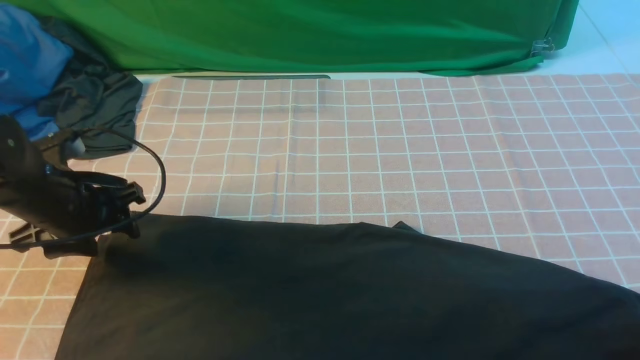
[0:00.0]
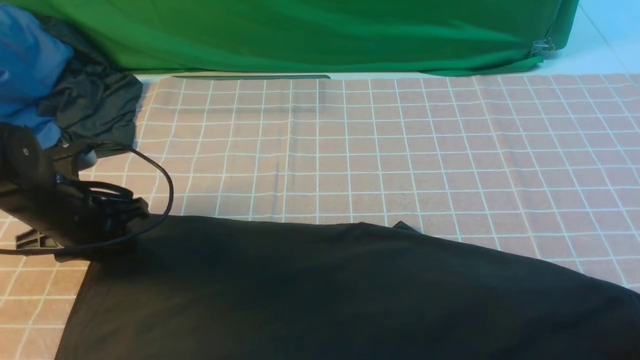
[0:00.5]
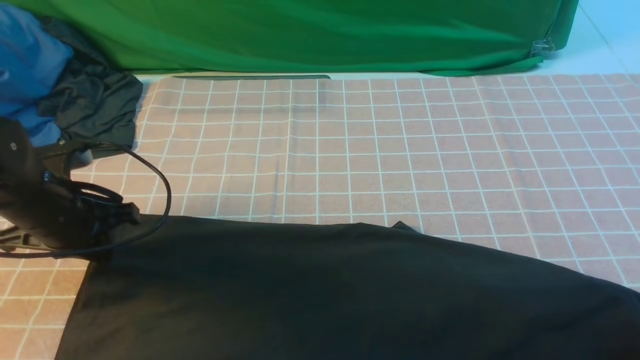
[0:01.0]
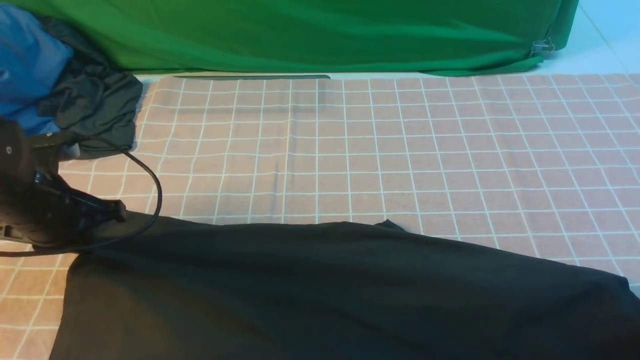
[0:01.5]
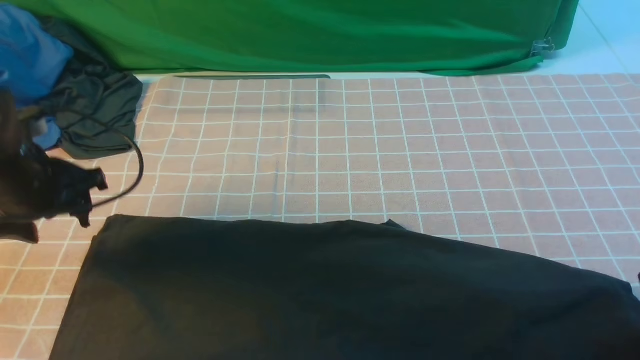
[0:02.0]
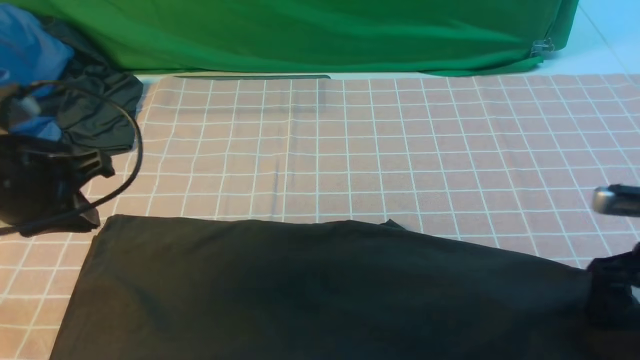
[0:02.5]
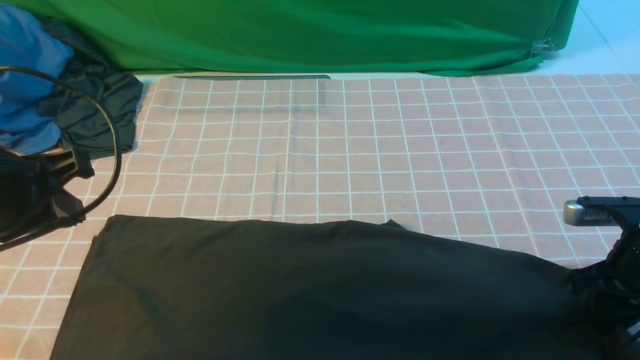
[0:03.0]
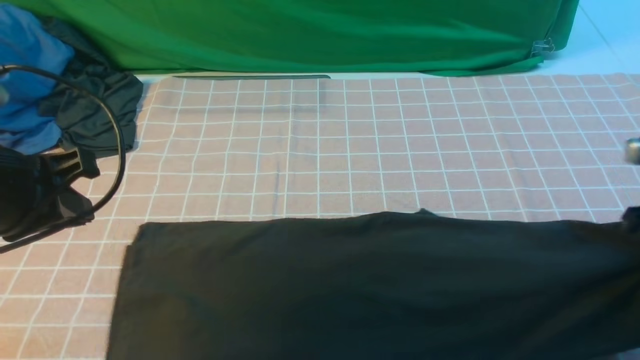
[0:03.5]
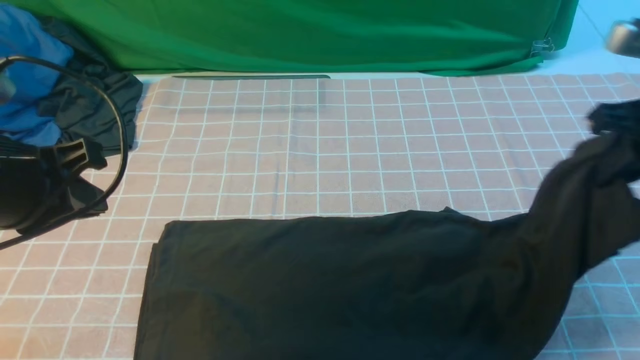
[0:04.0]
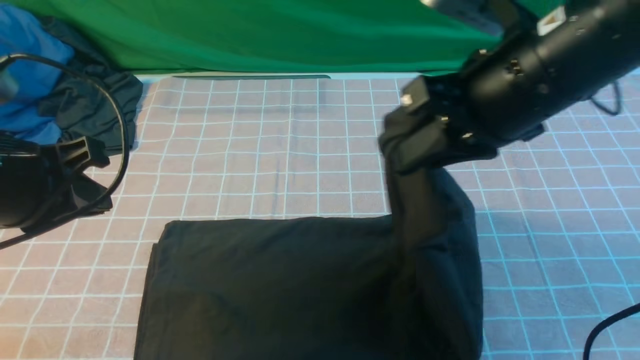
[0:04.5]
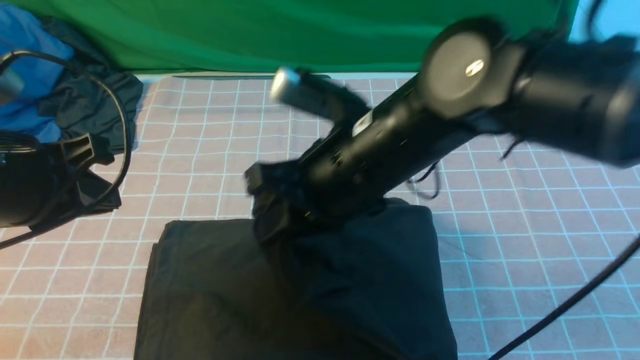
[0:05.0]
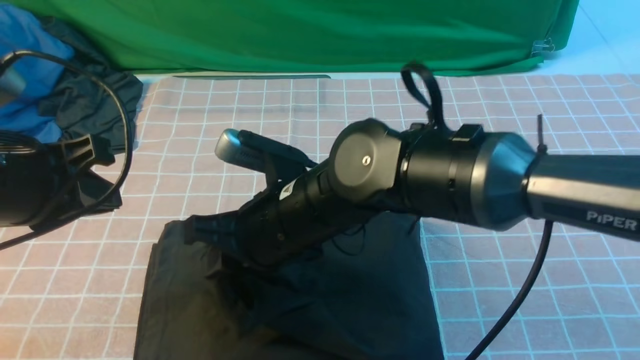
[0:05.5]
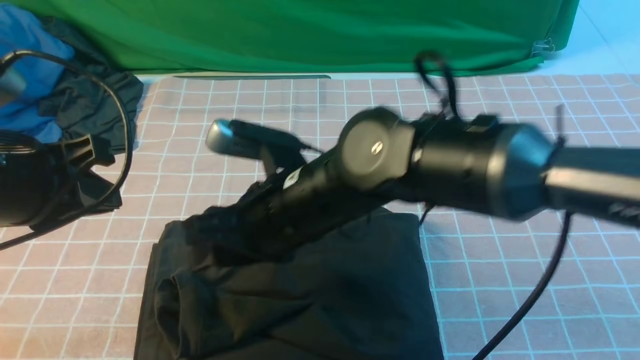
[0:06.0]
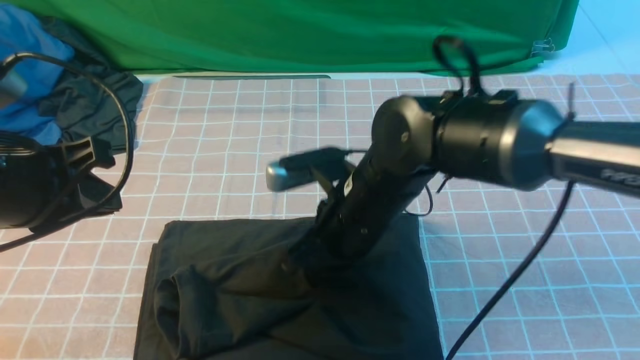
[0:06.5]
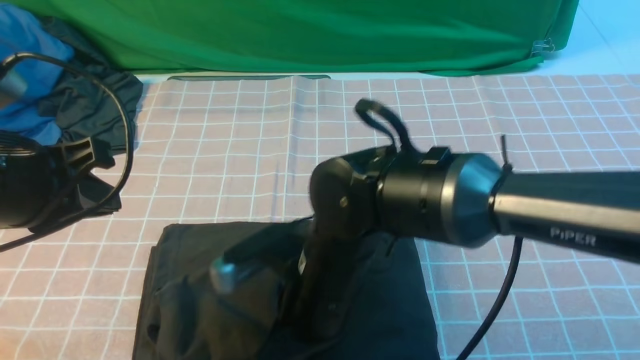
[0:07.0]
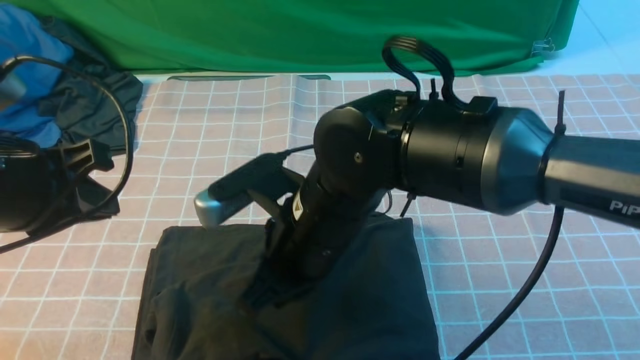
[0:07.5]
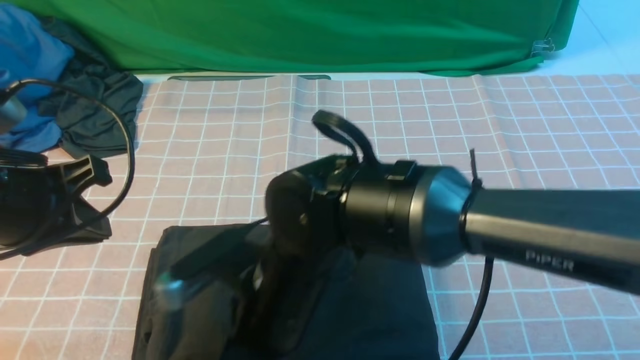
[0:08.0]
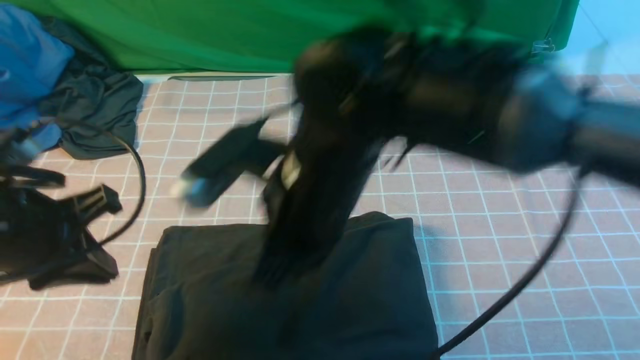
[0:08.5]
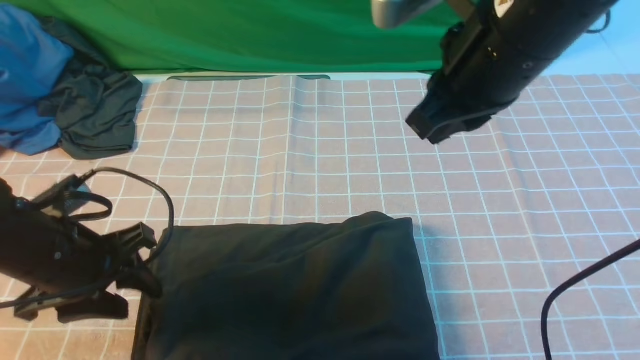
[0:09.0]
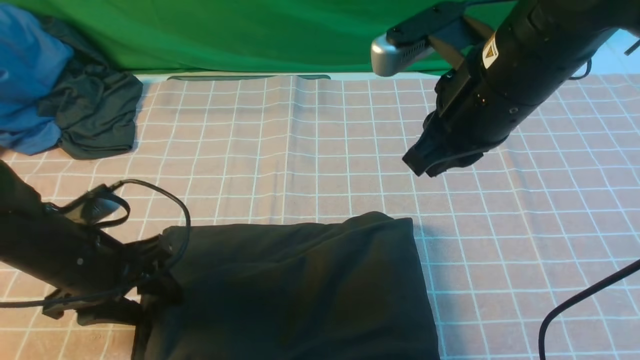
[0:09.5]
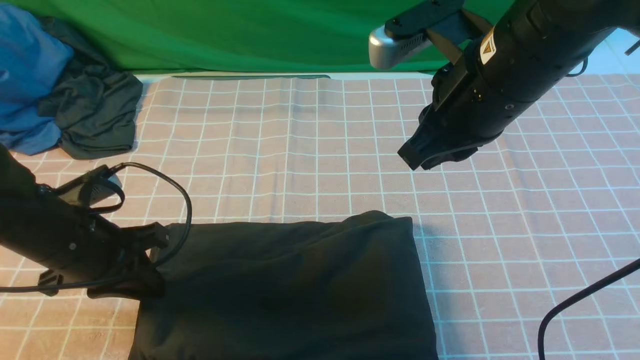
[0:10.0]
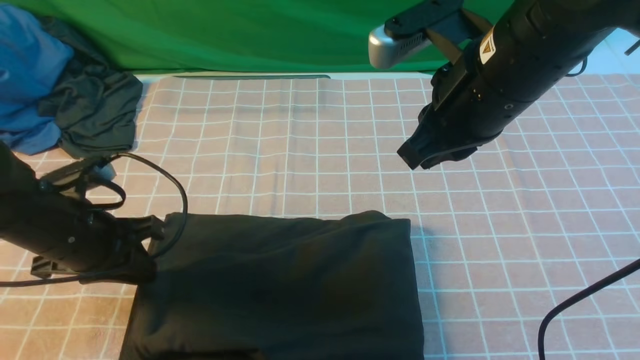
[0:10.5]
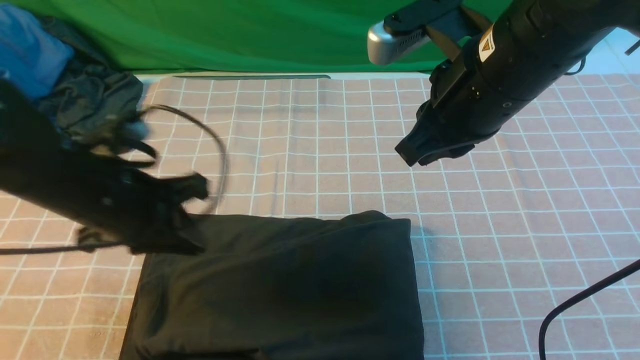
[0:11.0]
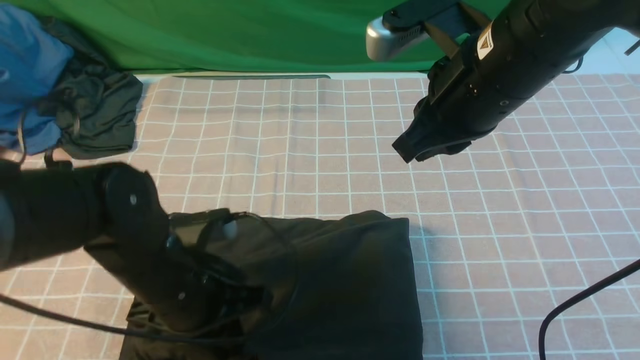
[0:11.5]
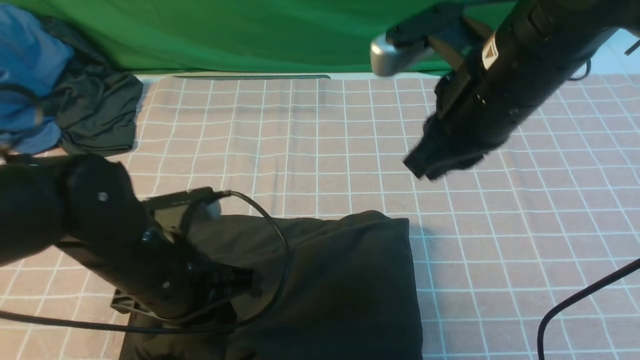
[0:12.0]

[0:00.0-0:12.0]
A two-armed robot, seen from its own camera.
Step, 0:00.0 to 0:03.0: use the right arm to clamp the right edge of the fabric.
Step, 0:03.5 to 0:05.5: use the right arm to drag the right edge of the fabric to the left and folds it over the left edge.
0:00.0 to 0:02.0: The left gripper closes and opens again.
0:02.0 to 0:04.0: The right gripper is displaced upward, to the left and forward by approximately 15 cm, and closes its fingers; the left gripper shifts about 15 cm backward and upward, and closes its fingers.
0:04.0 to 0:06.0: The right gripper heads to the left, covering approximately 30 cm.
0:06.0 to 0:08.0: The right gripper goes approximately 5 cm backward, and closes its fingers.
0:08.0 to 0:10.0: The left gripper travels downward by about 10 cm, and opens, then closes again, while the right gripper goes approximately 25 cm to the right, upward and forward.
0:10.0 to 0:12.0: The left gripper moves to the right, approximately 10 cm.

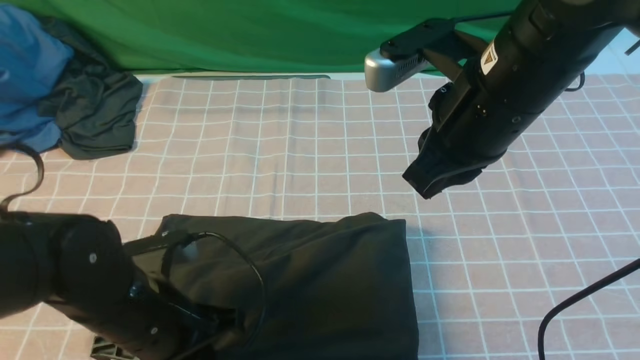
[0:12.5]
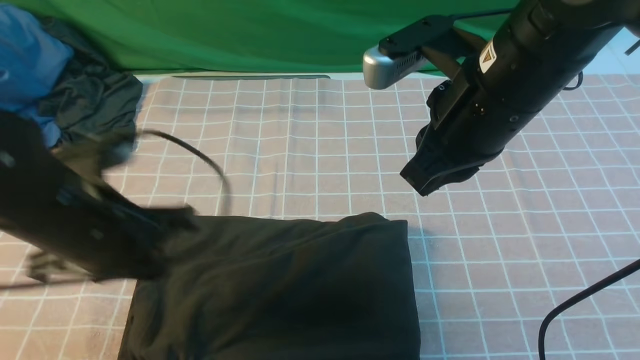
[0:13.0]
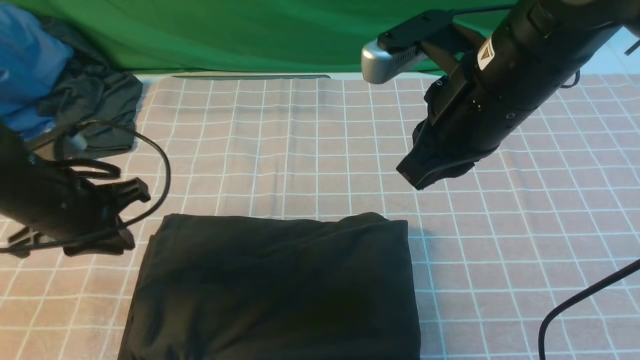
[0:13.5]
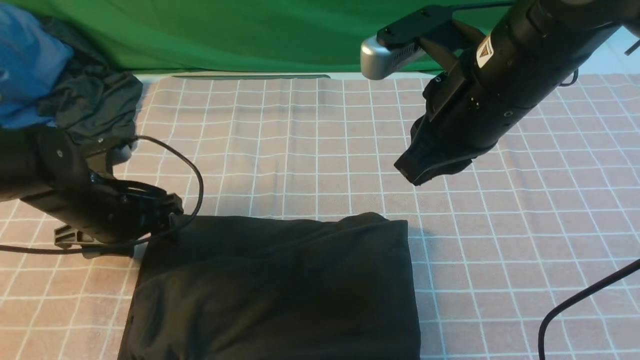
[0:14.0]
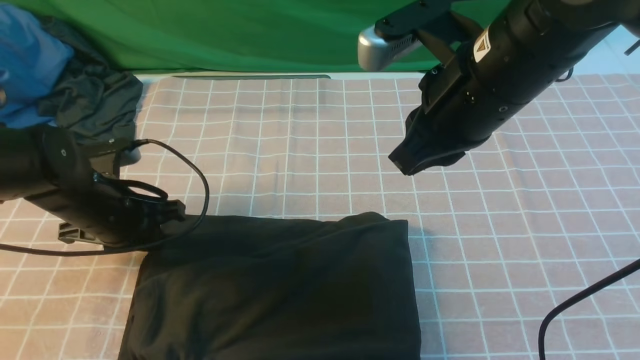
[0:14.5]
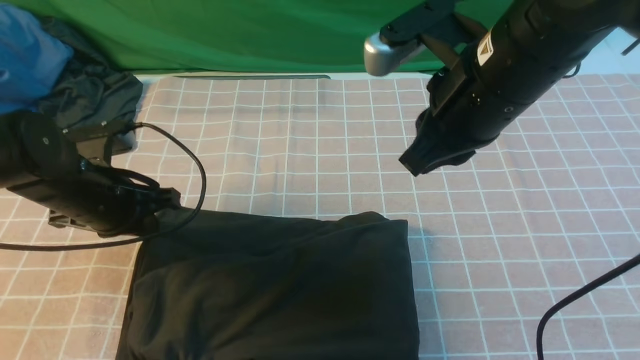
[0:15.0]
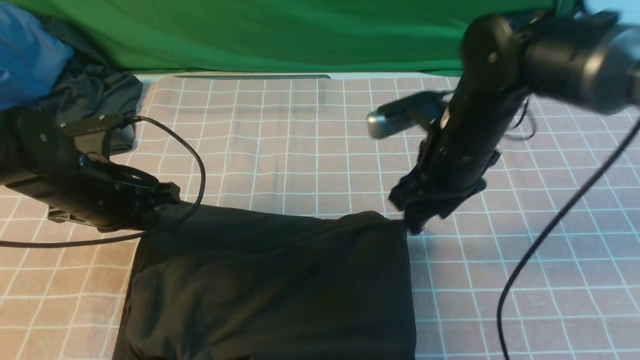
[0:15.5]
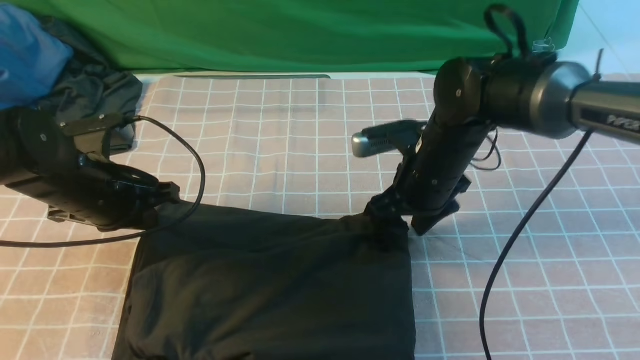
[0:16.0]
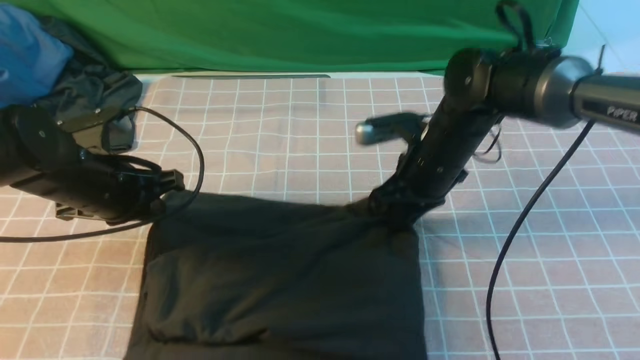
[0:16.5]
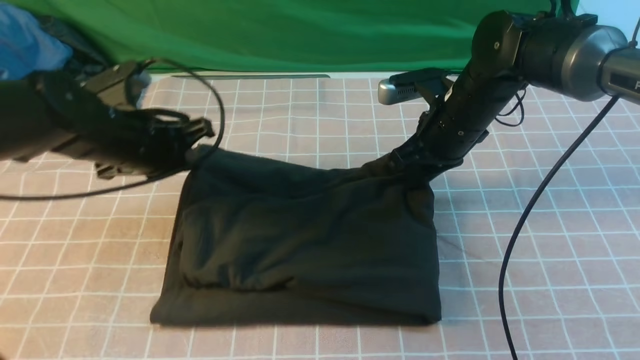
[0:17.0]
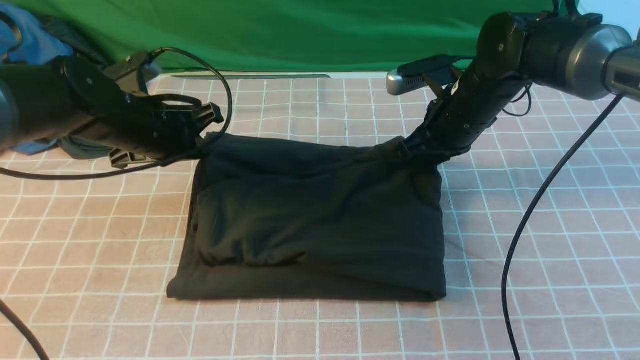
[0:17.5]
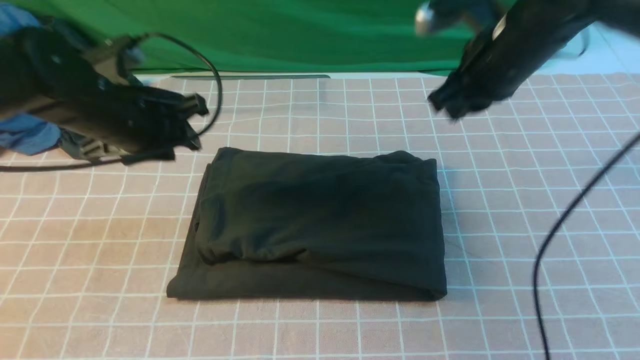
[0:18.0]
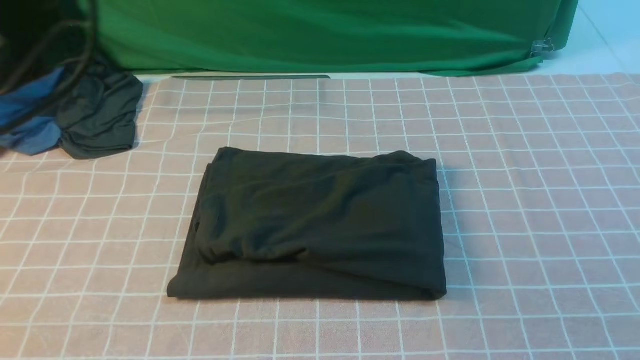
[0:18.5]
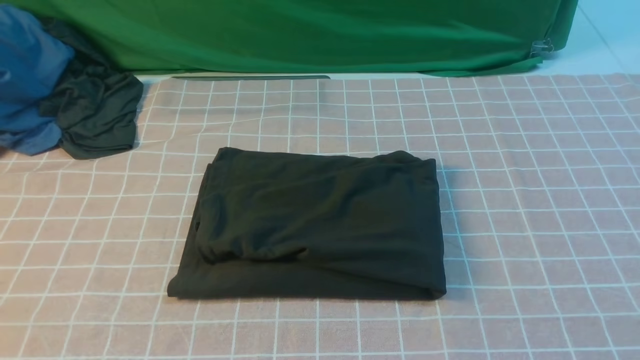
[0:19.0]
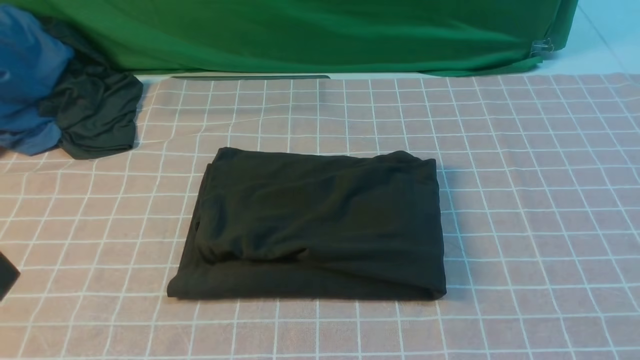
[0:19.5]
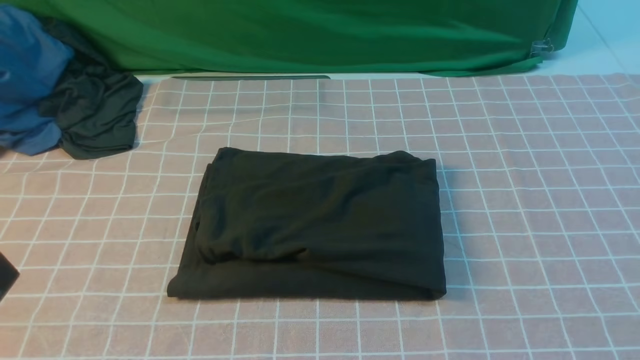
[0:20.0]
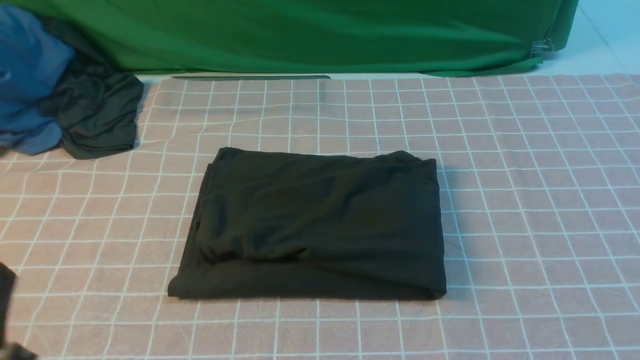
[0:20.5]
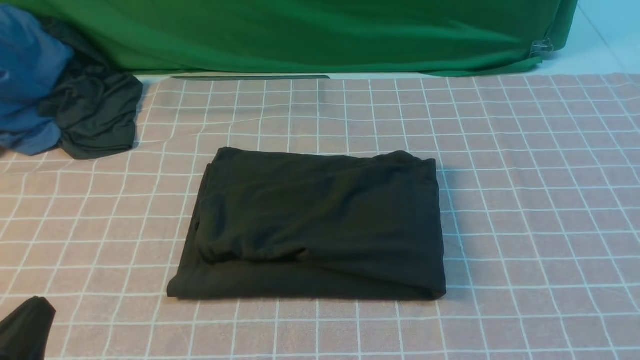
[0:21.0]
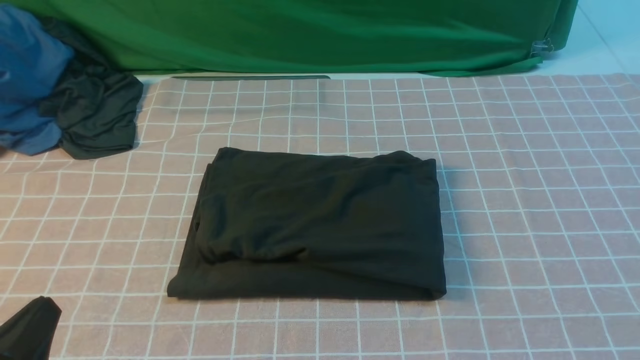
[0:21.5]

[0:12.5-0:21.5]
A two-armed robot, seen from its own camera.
0:12.5 to 0:14.5: The left gripper goes roughly 15 cm forward and to the left, and opens and closes again.
0:14.5 to 0:17.0: The right gripper heads downward and forward, covering some 20 cm, and opens and closes again, while the left gripper is displaced upward by some 5 cm.
0:17.0 to 0:19.5: The left gripper moves backward, some 35 cm, and opens, then closes again, while the right gripper is displaced backward and upward by some 50 cm.
0:19.5 to 0:21.5: The left gripper is displaced downward by roughly 15 cm.
